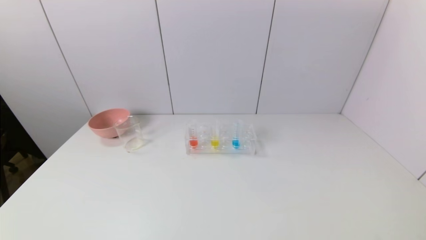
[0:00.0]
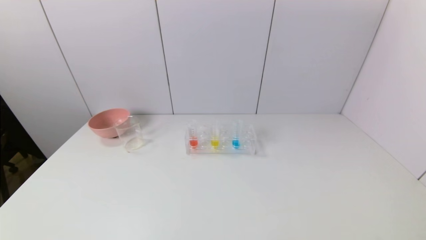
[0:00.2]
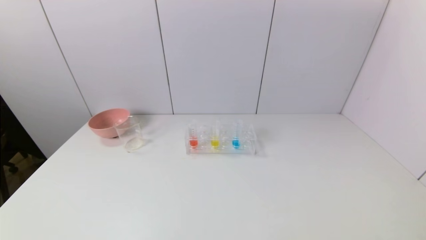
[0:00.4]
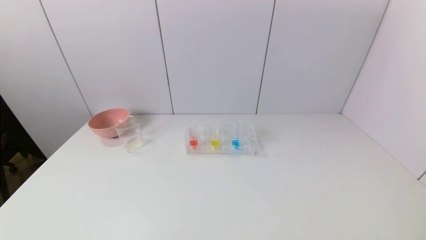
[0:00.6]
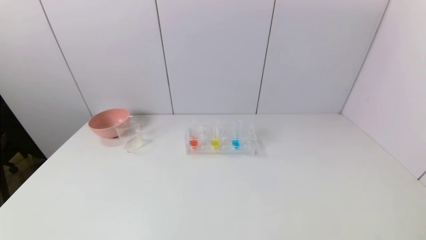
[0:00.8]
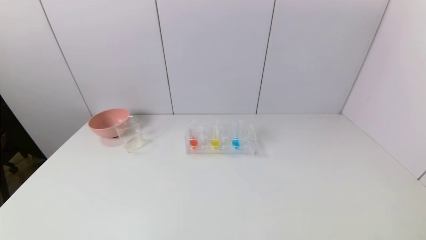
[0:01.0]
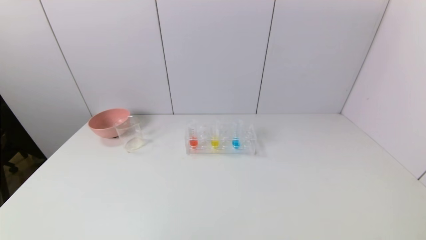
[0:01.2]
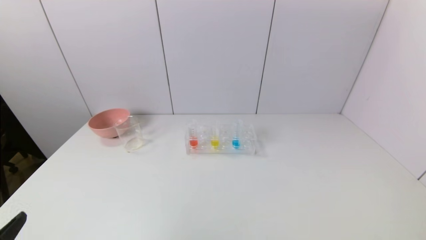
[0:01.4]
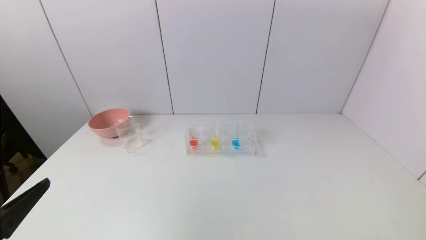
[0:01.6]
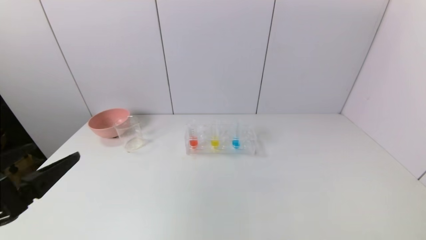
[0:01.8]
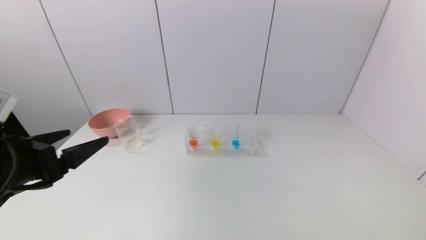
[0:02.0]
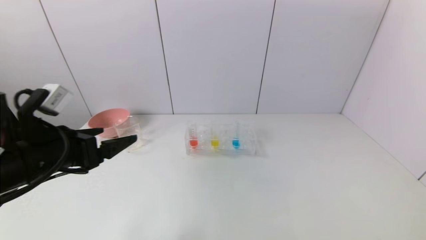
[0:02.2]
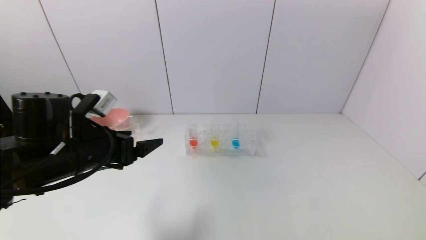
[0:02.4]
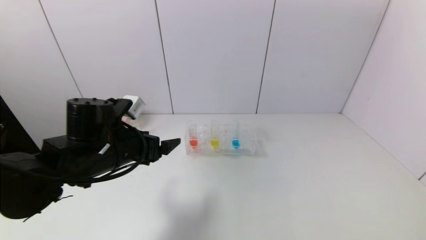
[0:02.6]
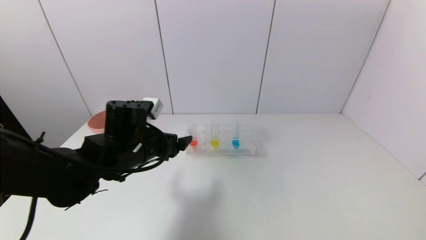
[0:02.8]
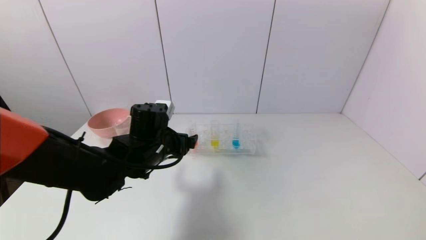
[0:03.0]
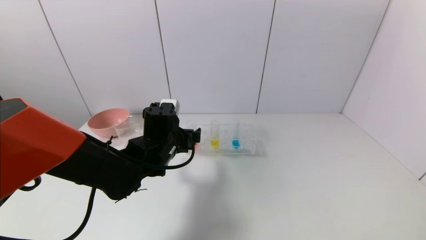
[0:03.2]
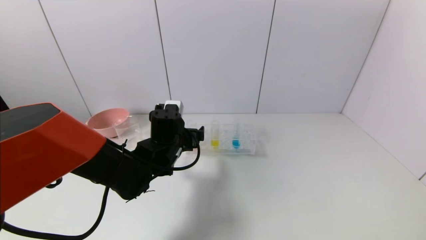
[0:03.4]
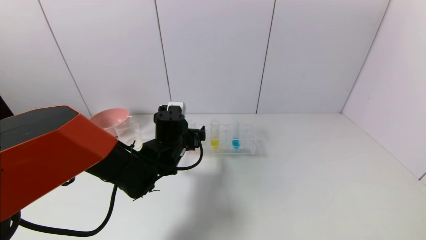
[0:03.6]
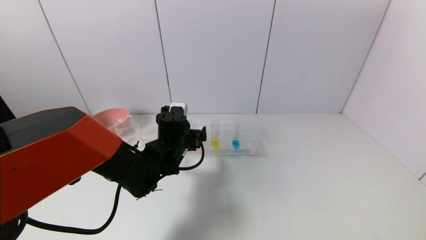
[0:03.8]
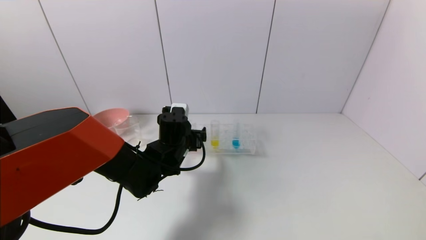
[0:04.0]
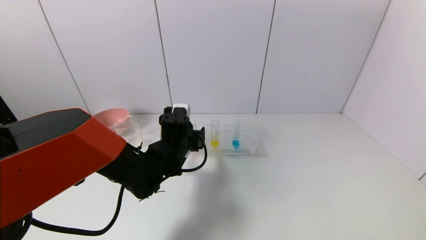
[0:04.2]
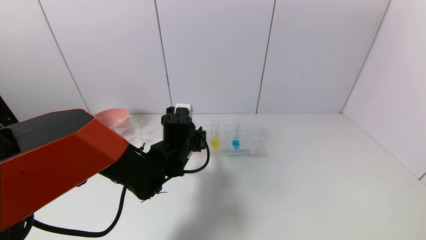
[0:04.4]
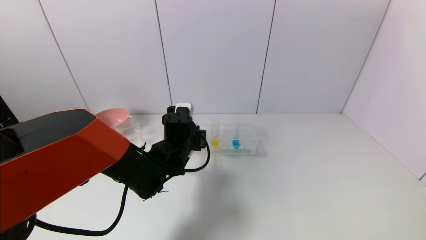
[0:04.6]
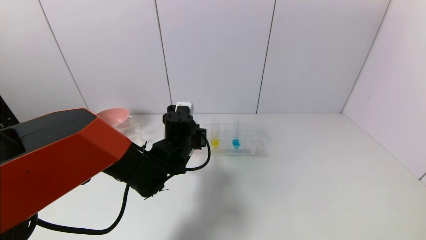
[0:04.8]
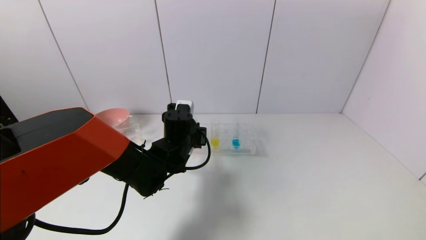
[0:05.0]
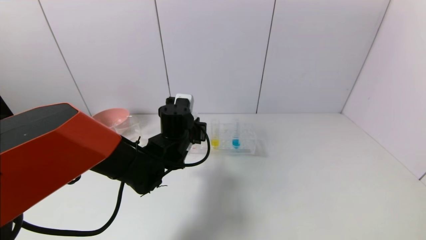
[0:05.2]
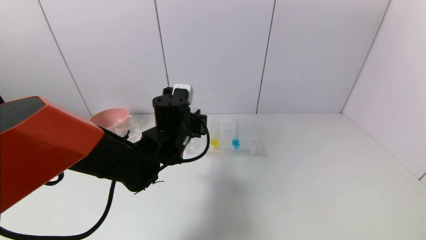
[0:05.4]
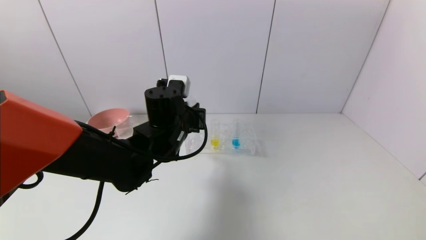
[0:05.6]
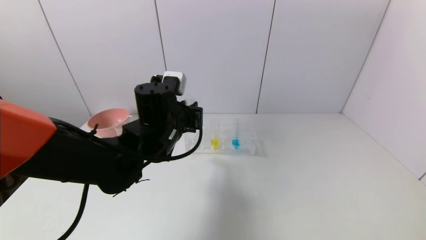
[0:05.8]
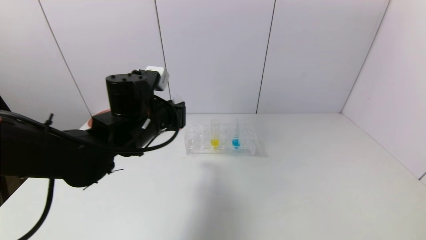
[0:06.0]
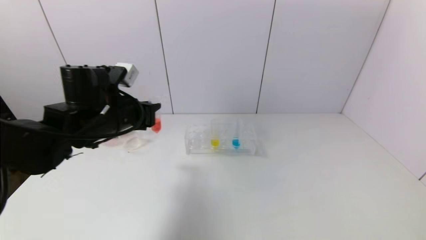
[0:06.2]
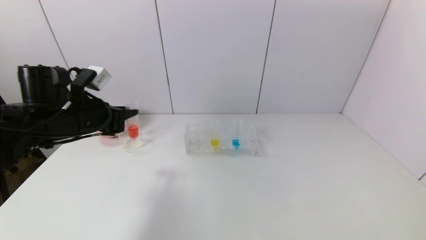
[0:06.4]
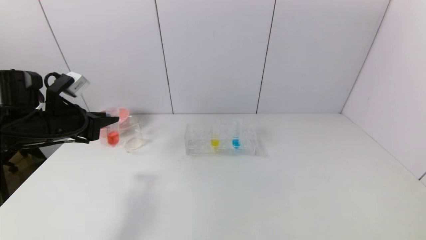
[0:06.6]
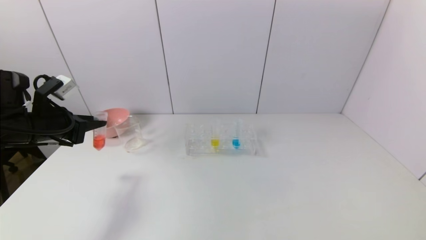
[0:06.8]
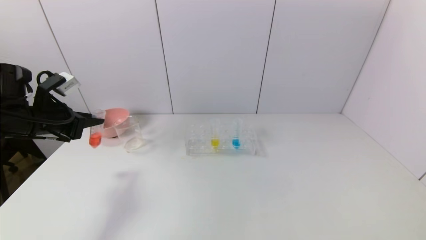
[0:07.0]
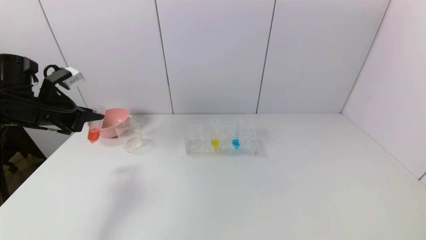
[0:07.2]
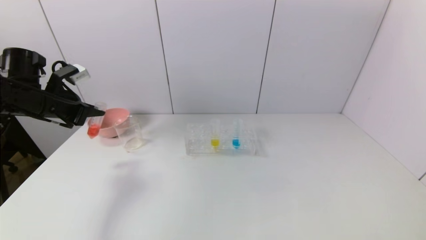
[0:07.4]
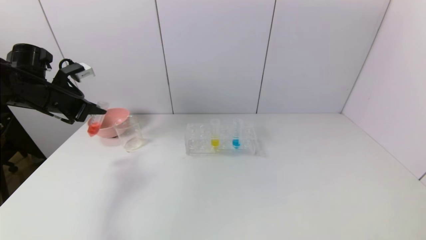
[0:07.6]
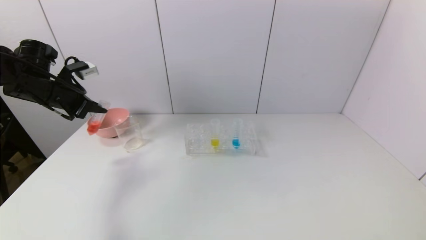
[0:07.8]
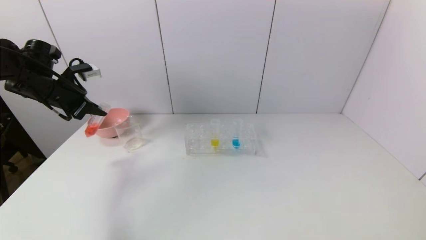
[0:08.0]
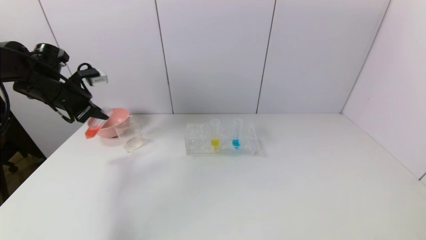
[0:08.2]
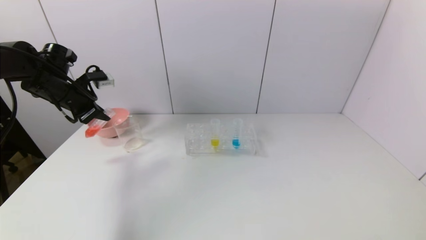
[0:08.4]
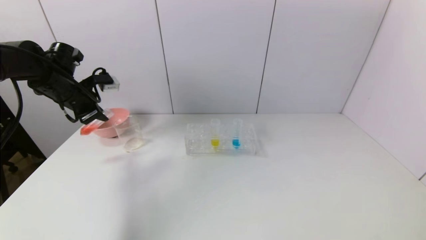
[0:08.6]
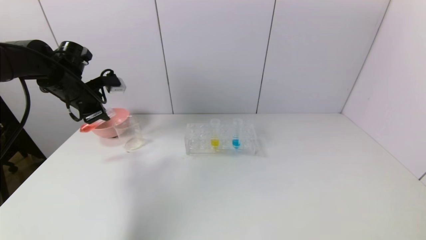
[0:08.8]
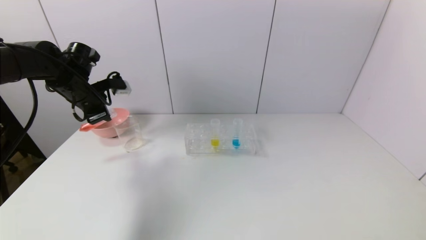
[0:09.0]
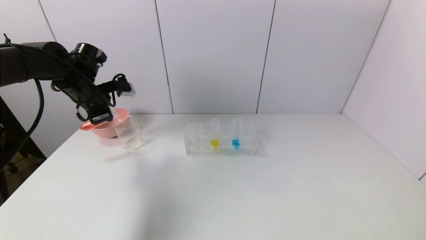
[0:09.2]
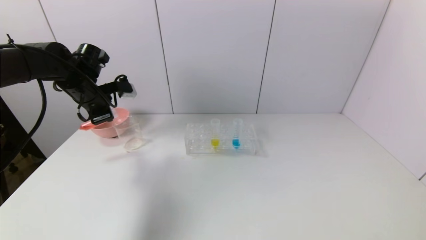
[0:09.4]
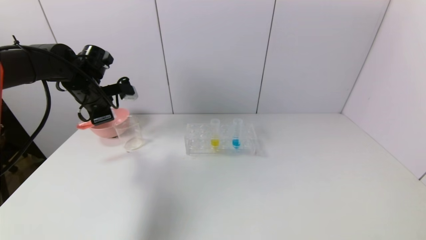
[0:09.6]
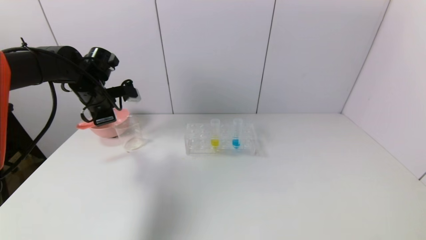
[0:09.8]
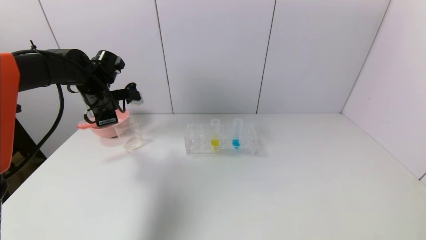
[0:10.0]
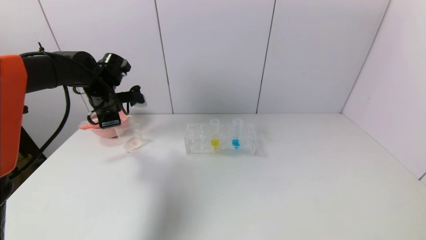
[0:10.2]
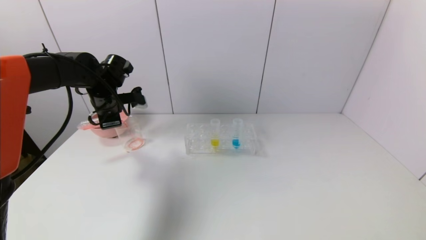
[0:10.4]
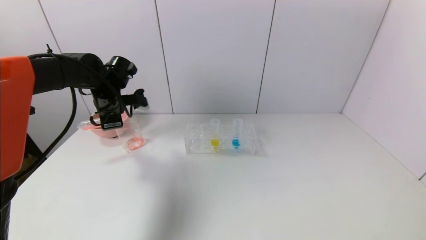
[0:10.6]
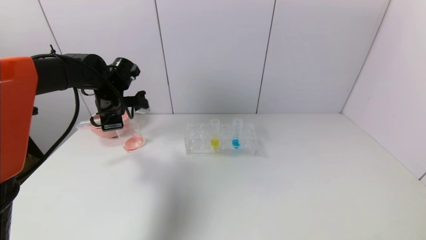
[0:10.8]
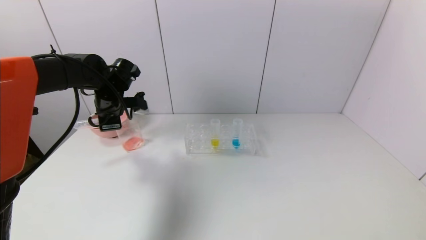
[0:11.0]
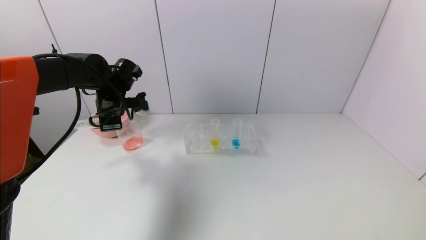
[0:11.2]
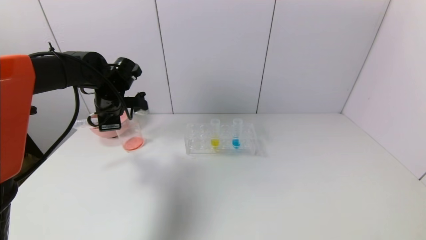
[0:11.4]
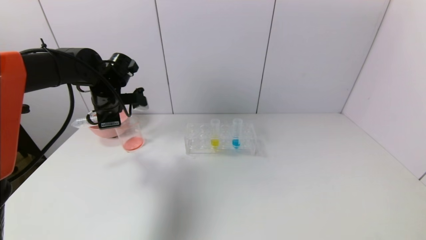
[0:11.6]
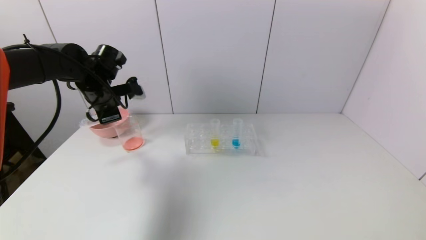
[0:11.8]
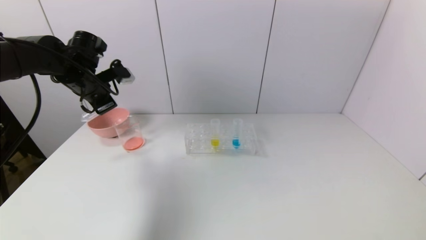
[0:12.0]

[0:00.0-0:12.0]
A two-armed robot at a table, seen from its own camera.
Task of the whole recording: pick up the test tube with yellow pigment and the test tube with red pigment by grippers and pour them into the beaker.
Step, 0:00.0 to 0:04.6: Grasp the red reagent with the left gripper.
Step, 0:04.8 to 0:11.4: Pour the red reagent into the graduated cylinder with the left gripper.
0:00.0 to 0:01.6: The left gripper shifts about 15 cm upward and forward.
0:01.6 to 0:03.0: The left gripper travels forward and to the right by about 30 cm.
0:03.0 to 0:04.4: The left gripper shifts by about 5 cm, and closes.
0:04.4 to 0:06.0: The left gripper heads upward and to the left, covering approximately 10 cm.
0:06.0 to 0:07.6: The left gripper is displaced to the left by roughly 25 cm.
0:07.6 to 0:09.0: The left gripper goes approximately 5 cm to the right.
0:09.0 to 0:10.4: The left gripper moves to the right, about 5 cm.
0:10.4 to 0:12.0: The left gripper changes place by about 5 cm.

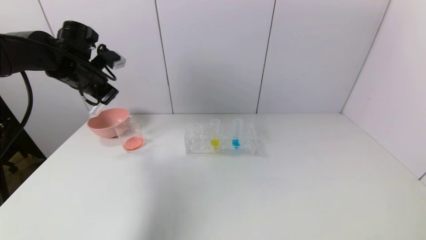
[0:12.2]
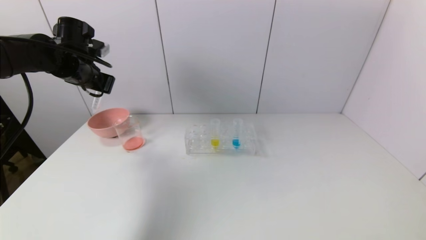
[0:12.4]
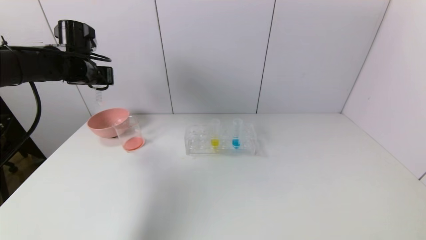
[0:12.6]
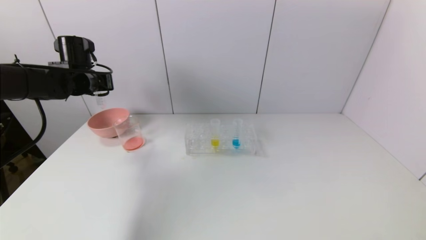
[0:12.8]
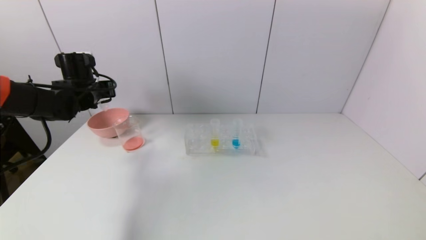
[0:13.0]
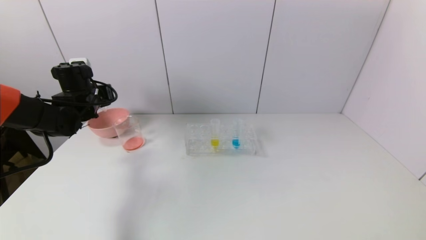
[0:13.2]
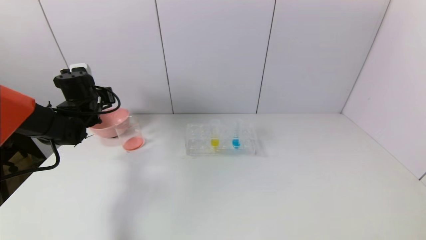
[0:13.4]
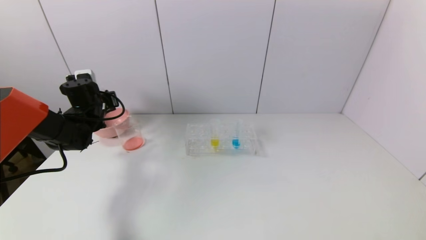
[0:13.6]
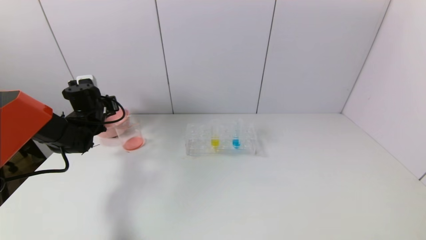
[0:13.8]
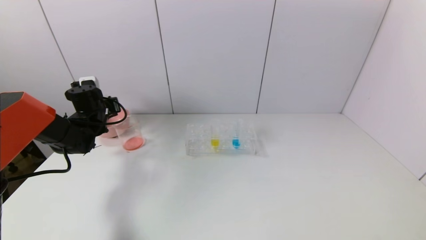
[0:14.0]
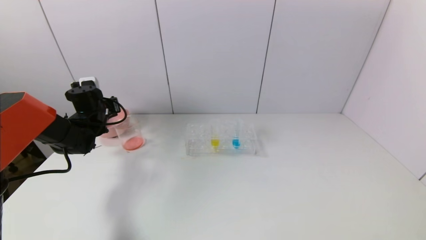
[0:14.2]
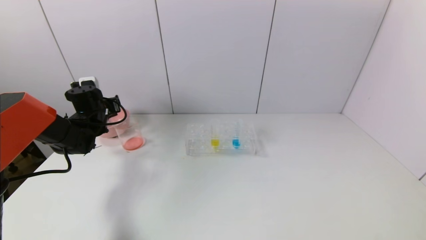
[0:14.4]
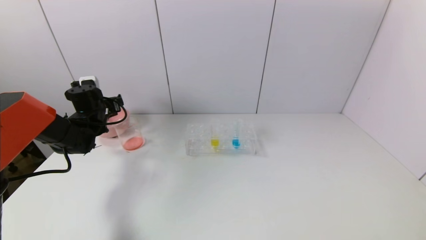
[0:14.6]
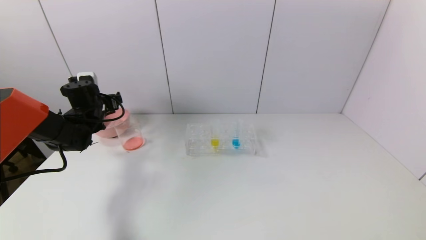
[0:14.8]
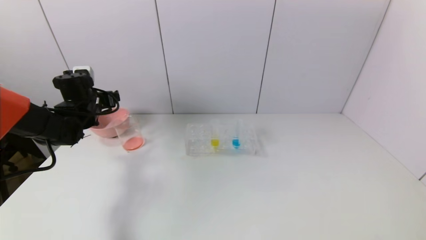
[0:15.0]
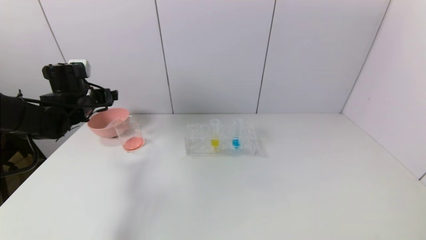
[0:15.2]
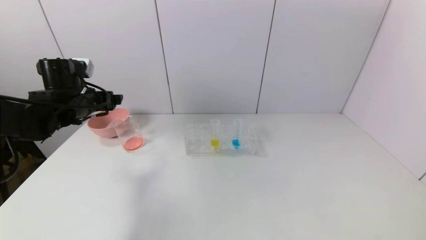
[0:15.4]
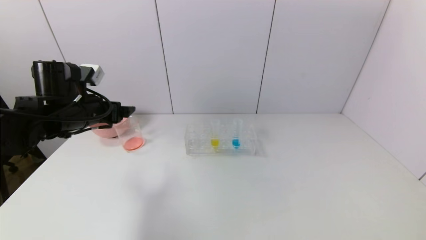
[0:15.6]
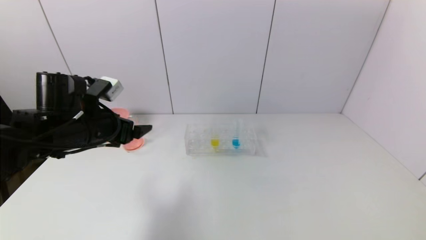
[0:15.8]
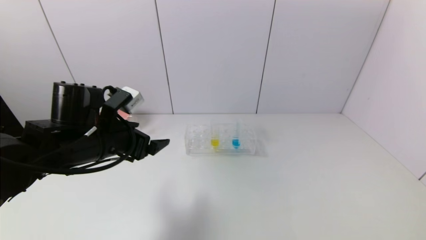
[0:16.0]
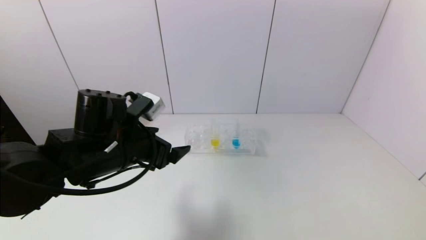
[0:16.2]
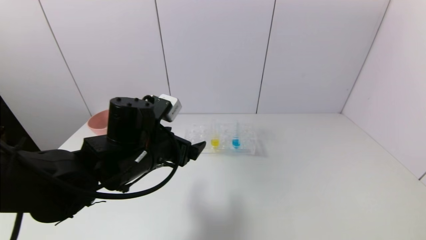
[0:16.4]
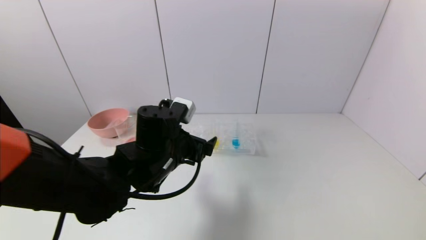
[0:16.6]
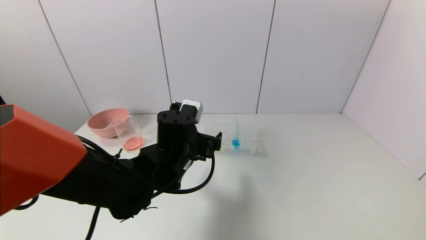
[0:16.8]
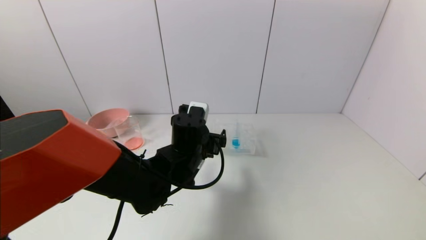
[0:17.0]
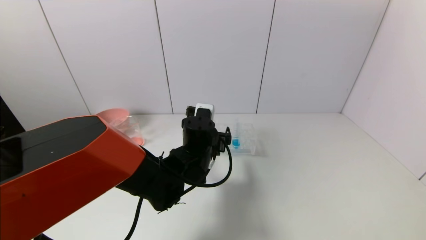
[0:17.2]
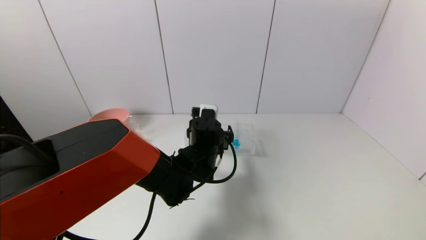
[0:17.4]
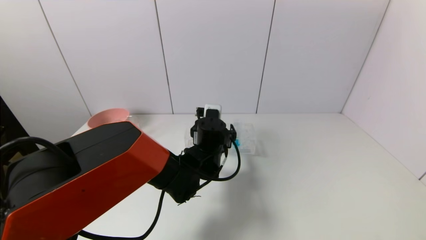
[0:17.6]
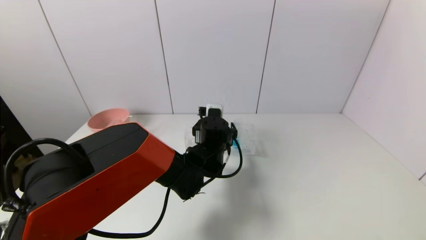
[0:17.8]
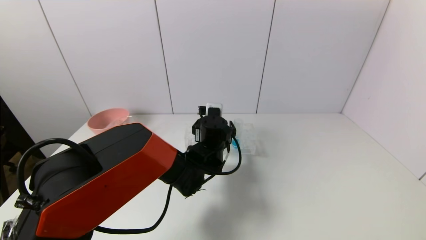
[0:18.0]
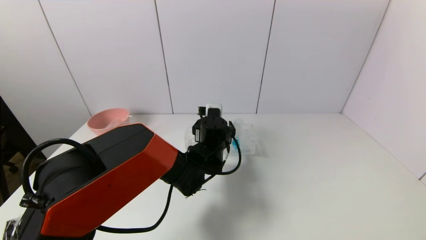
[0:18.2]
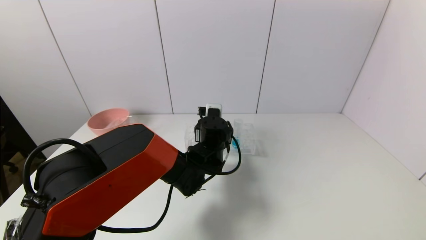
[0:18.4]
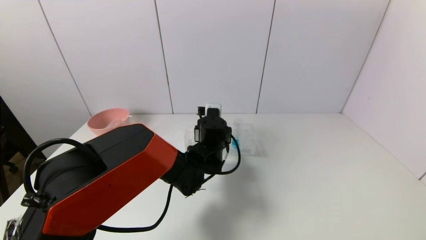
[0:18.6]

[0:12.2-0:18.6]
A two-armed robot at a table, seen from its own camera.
Task of the whole recording: pick up the test tube with yellow pigment and the test tube with red pigment by grippers and pour them into the beaker.
Step, 0:12.2 to 0:14.6: Place the test tube into the pink bowl with the left gripper.
0:12.2 to 0:13.8: The left gripper heads downward, covering some 15 cm.
0:13.8 to 0:15.4: The left gripper heads backward and upward, covering roughly 10 cm, and opens.
0:15.4 to 0:17.0: The left gripper shifts approximately 25 cm to the right.
0:17.0 to 0:18.6: The left gripper travels forward by some 5 cm, and closes up.
